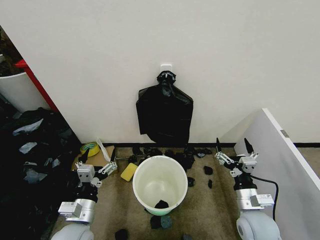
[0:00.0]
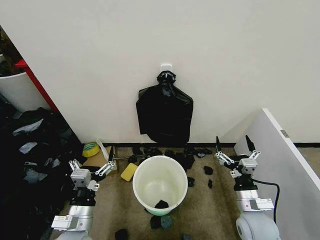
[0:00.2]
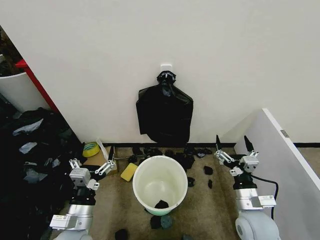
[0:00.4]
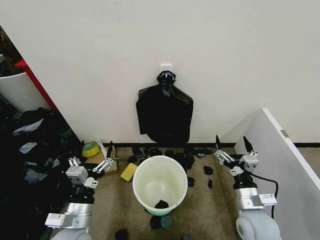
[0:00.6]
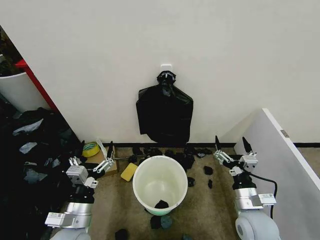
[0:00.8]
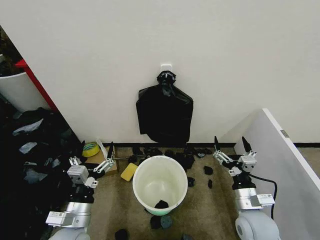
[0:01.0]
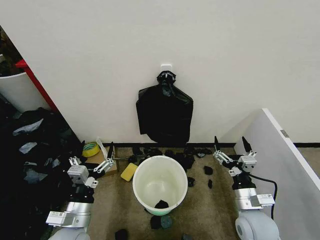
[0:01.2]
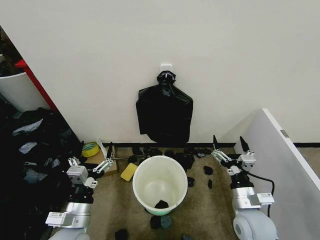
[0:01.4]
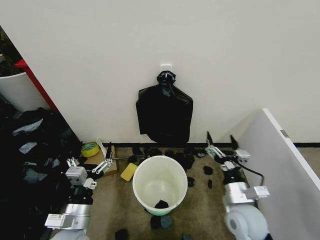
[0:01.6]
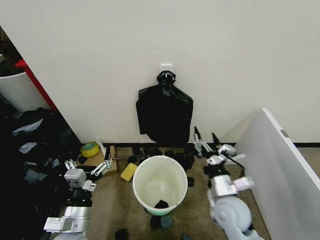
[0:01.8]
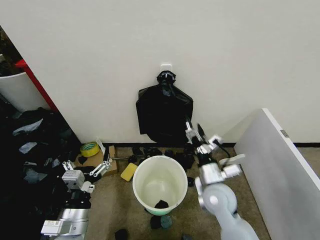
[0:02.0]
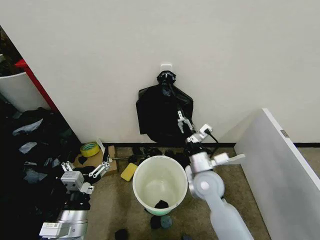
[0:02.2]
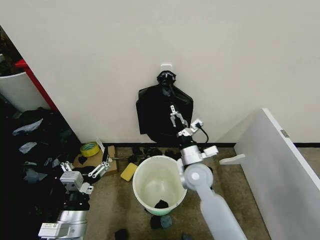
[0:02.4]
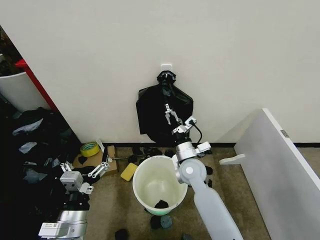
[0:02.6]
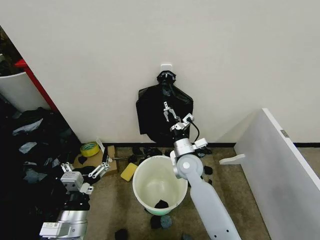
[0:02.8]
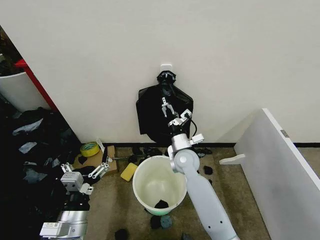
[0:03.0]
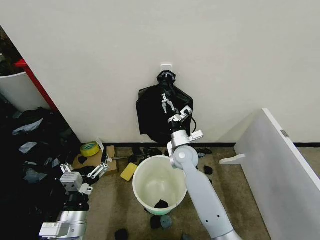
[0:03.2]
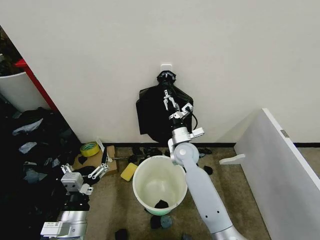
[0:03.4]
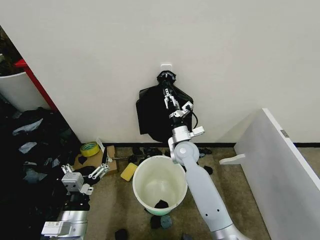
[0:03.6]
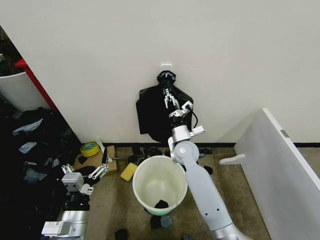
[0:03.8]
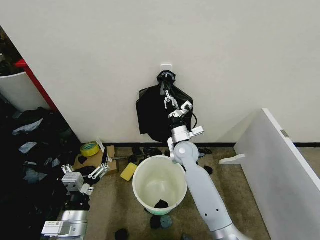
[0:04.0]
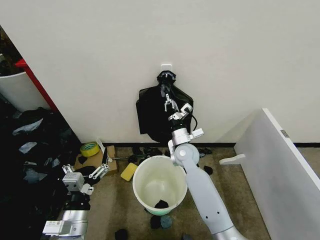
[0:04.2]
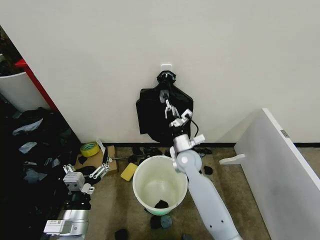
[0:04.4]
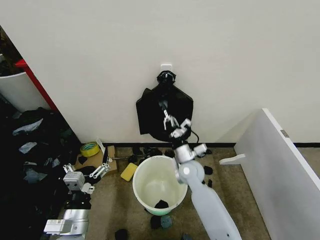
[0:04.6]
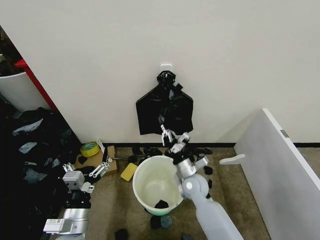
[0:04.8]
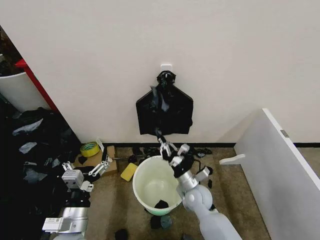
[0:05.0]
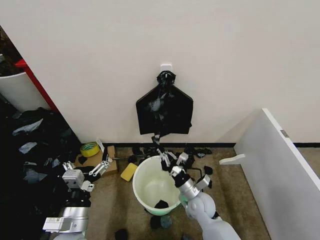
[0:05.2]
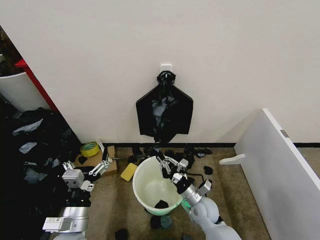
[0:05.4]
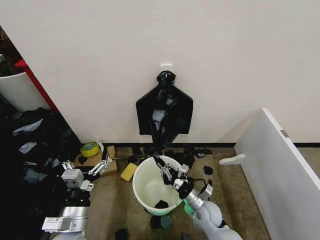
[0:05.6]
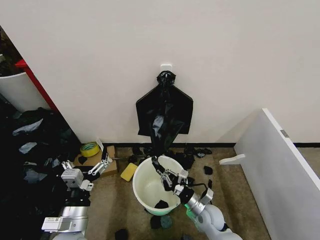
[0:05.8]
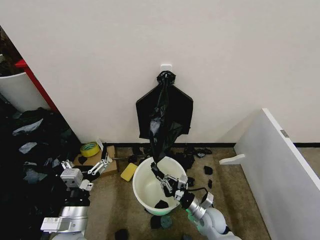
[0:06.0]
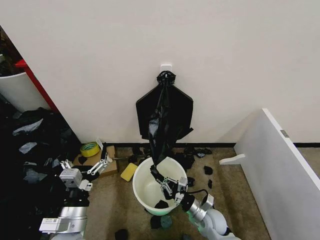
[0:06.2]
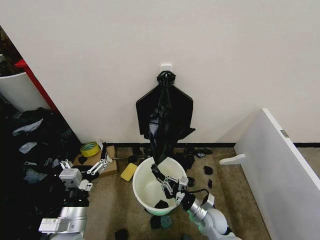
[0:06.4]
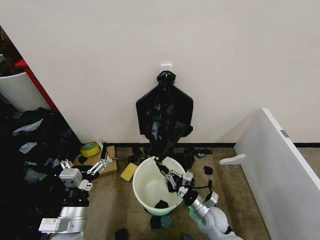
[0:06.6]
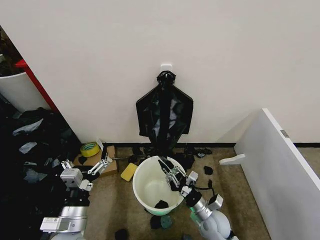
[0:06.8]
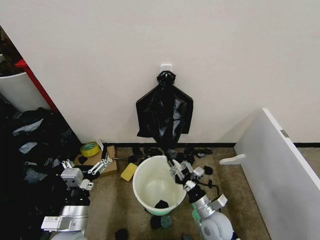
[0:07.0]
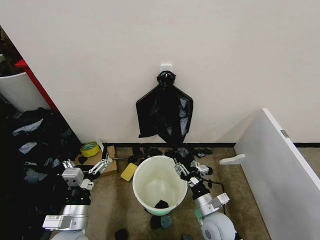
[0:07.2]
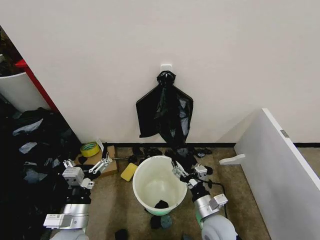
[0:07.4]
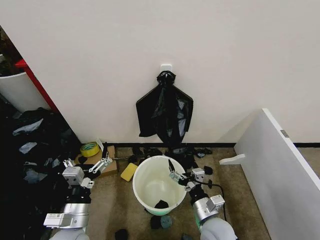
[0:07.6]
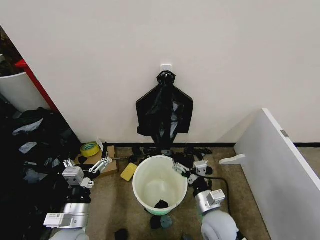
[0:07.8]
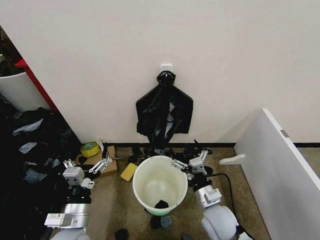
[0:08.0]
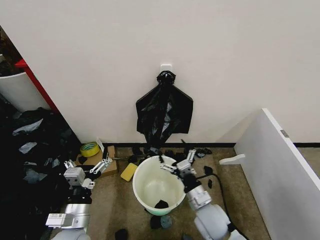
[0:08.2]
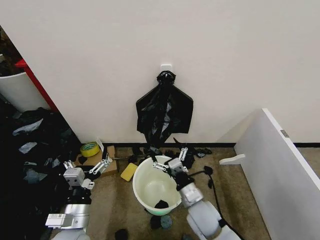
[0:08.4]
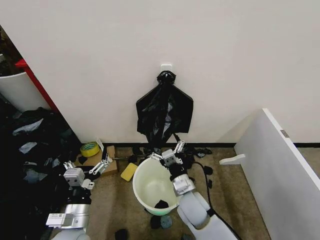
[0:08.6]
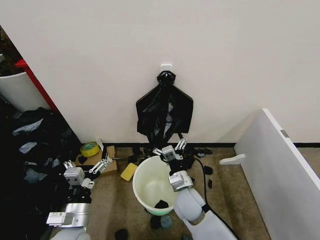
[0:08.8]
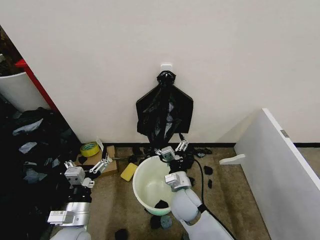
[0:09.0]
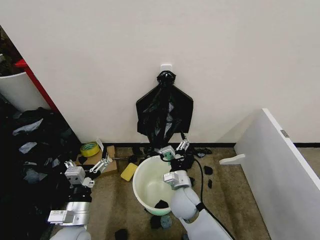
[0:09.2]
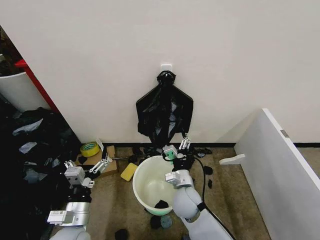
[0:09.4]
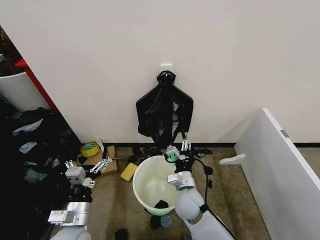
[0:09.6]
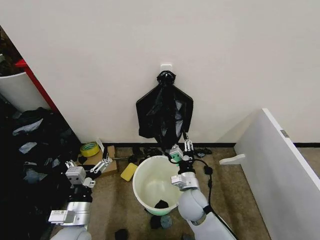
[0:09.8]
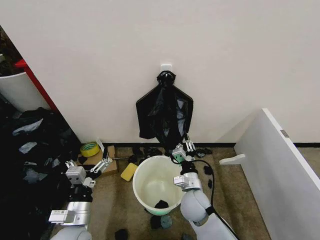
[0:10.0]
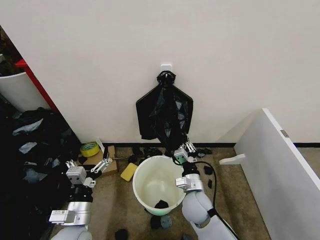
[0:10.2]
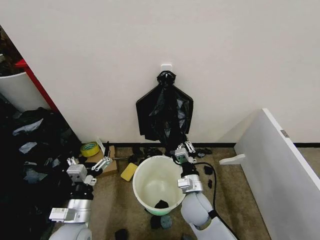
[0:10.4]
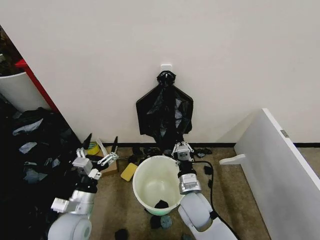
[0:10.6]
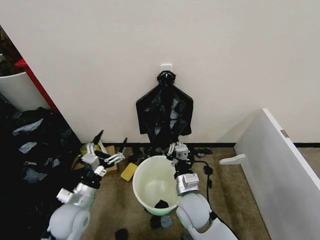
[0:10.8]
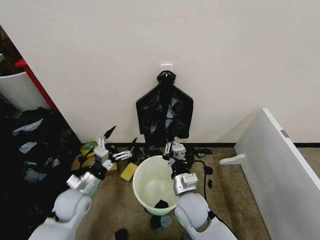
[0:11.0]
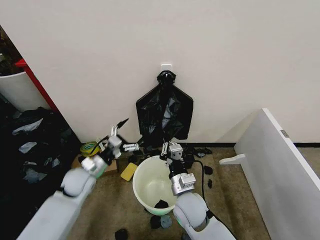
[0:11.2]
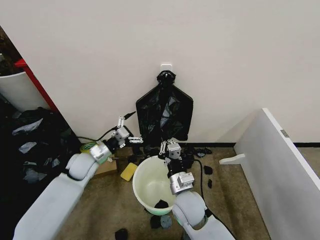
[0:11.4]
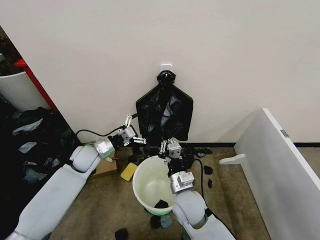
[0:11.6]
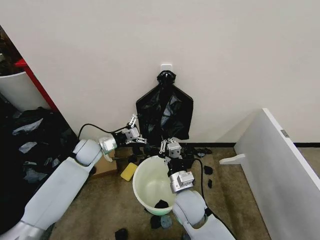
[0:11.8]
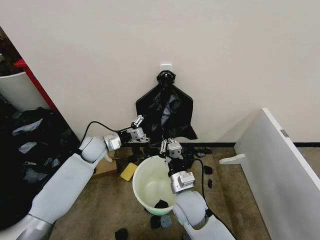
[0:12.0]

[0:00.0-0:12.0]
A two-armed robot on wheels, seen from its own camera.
Task of the whole recording: Place the garbage bag over the trash bin.
0:01.6 to 0:03.0: The right gripper travels forward and to the left by some 25 cm.
0:03.0 to 0:04.4: The right gripper closes up.
0:04.4 to 0:06.0: The right gripper travels backward, downward and to the right by roughly 25 cm.
0:06.0 to 0:07.6: The right gripper heads upward and backward, covering roughly 10 cm, and opens.
0:07.6 to 0:09.0: The right gripper moves forward and to the left, approximately 10 cm.
0:09.0 to 0:10.4: The right gripper closes.
0:10.4 to 0:12.0: The left gripper goes about 30 cm forward. Meanwhile the right gripper moves some 5 cm.

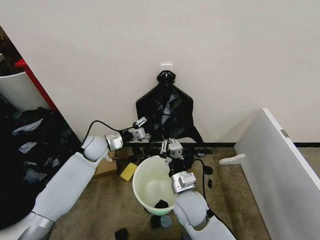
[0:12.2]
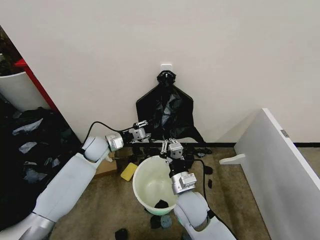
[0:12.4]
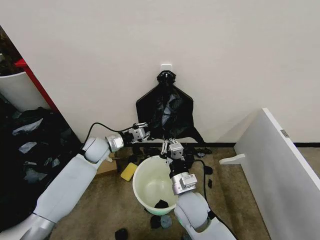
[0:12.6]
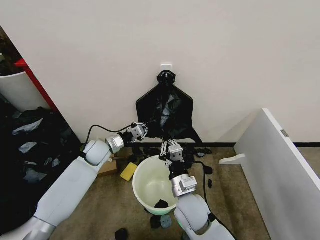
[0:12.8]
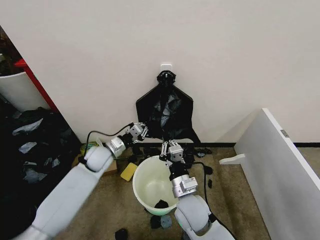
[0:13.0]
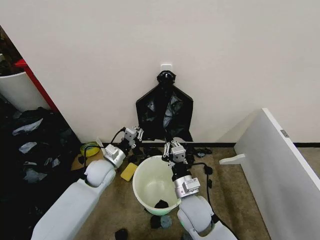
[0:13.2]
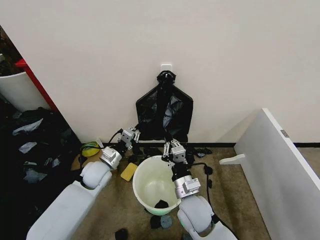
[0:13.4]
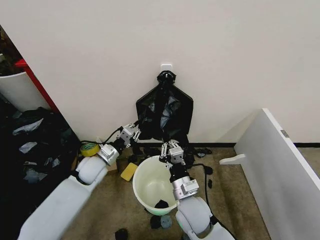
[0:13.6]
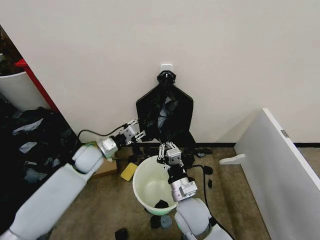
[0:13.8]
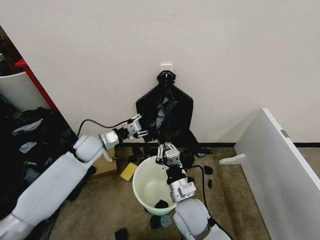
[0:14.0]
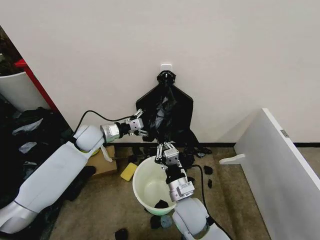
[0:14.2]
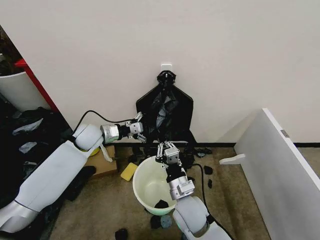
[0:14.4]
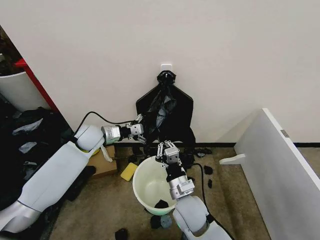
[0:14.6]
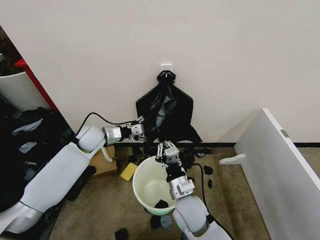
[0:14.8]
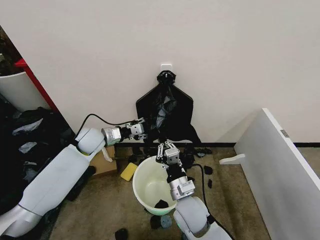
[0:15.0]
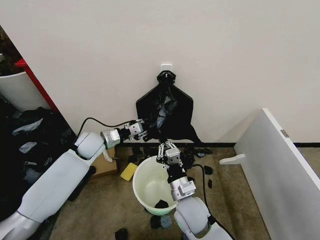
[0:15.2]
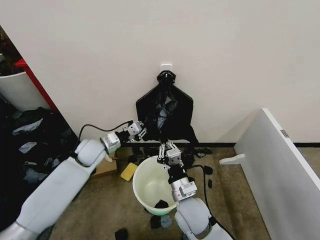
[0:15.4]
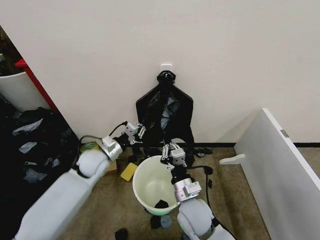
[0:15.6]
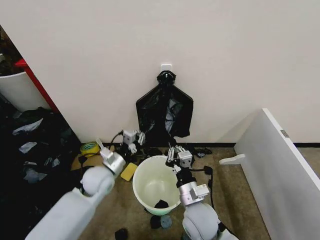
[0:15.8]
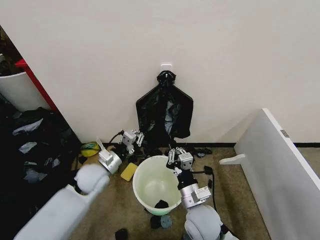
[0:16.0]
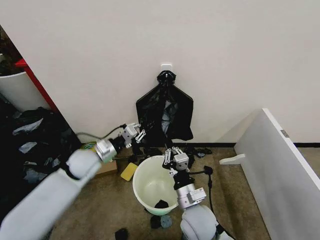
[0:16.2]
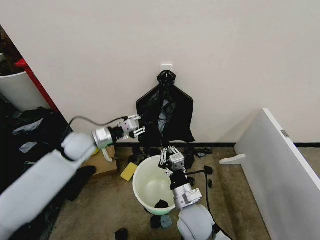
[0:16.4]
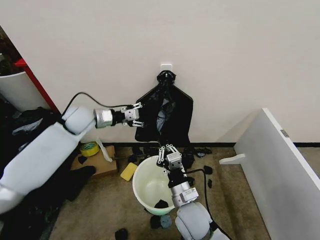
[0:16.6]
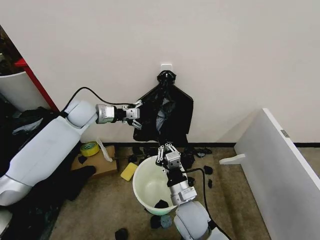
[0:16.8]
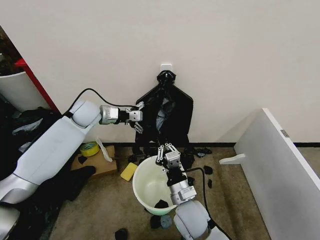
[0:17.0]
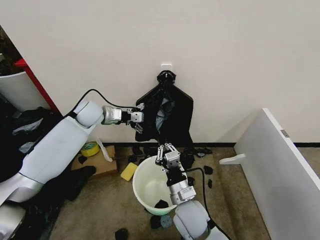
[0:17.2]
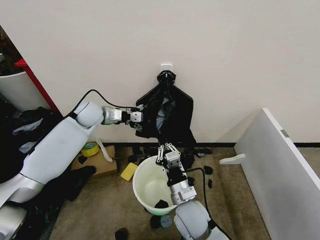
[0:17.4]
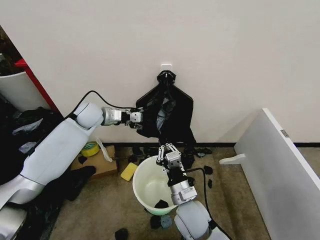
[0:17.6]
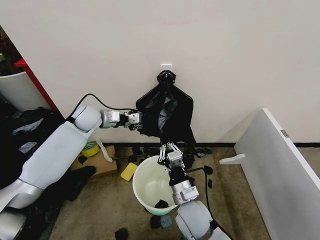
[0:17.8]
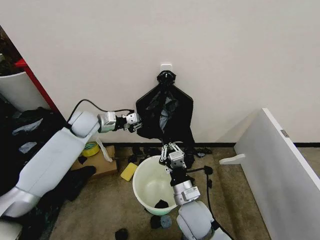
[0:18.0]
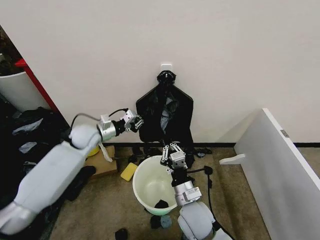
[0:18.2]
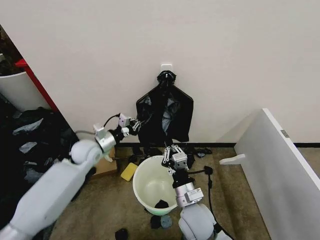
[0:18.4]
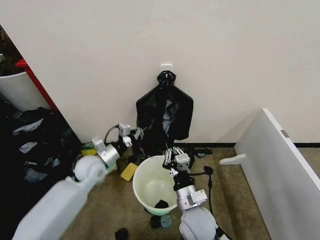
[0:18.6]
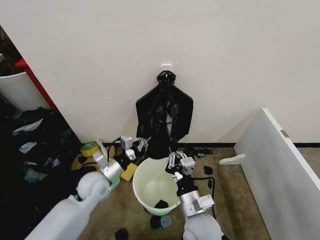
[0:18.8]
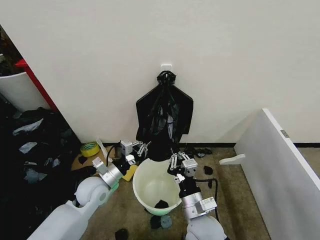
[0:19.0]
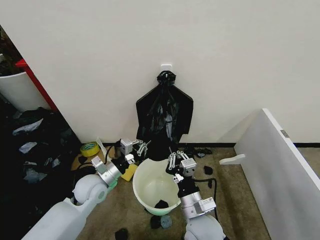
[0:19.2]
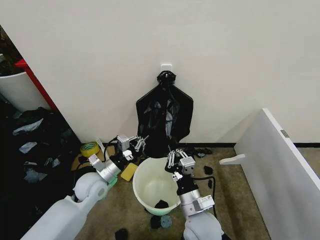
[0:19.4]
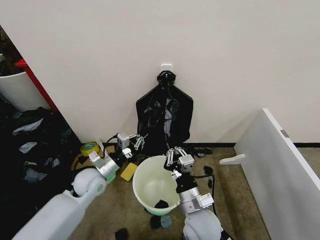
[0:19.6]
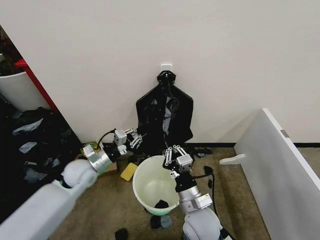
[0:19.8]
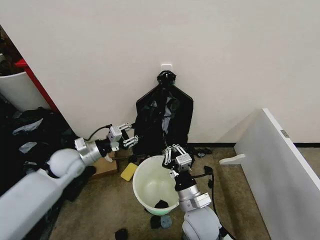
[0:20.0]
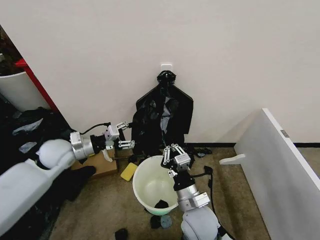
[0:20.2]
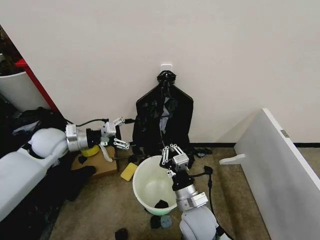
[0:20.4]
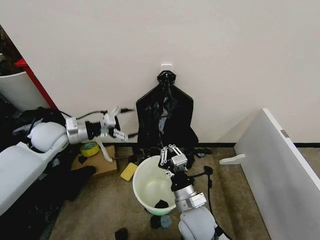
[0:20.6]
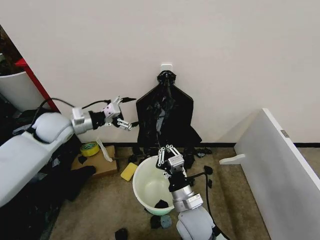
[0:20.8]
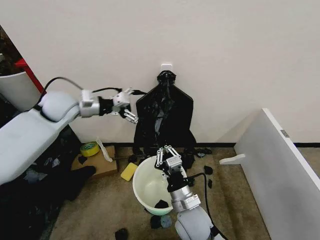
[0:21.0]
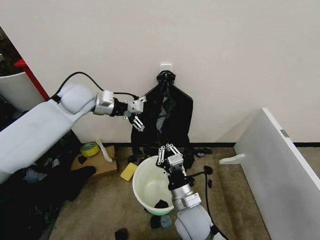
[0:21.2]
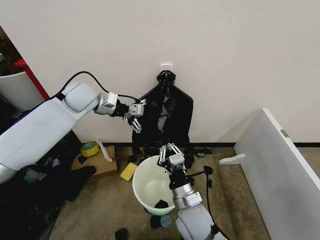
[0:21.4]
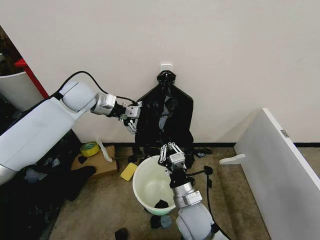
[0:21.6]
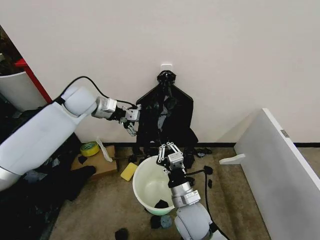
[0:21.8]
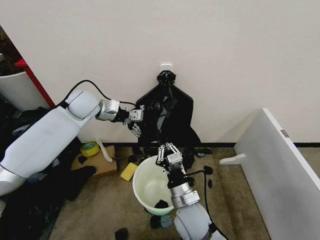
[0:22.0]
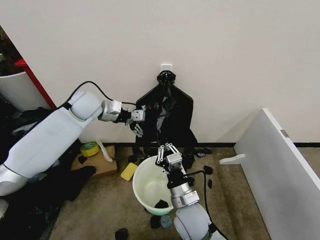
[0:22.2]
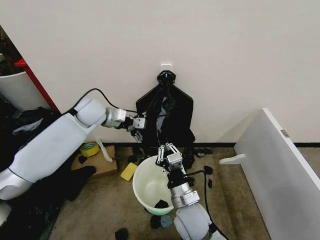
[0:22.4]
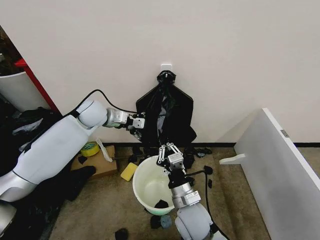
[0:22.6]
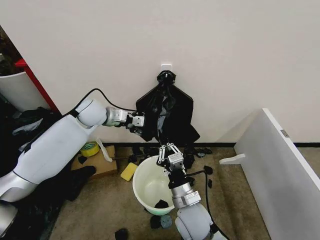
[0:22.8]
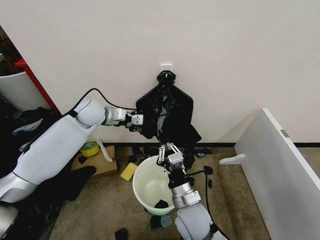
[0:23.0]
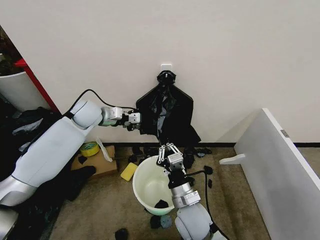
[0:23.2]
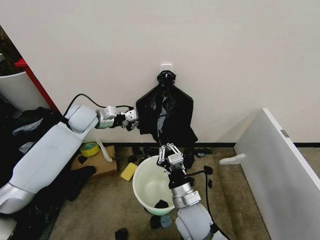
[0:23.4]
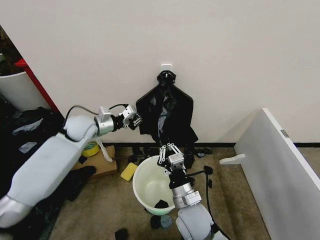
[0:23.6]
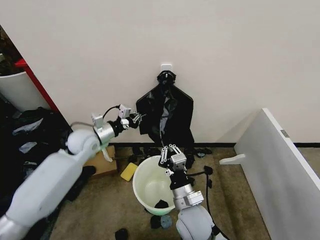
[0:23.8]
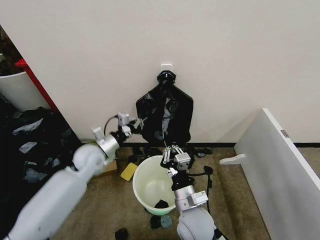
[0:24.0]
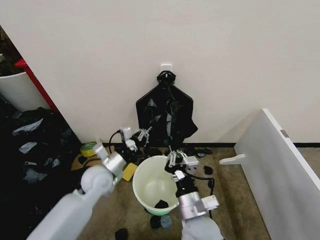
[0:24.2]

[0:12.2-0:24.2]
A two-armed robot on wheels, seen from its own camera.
Task of the whole recording: Place the garbage bag over the trash bin.
0:12.2 to 0:13.8: The left gripper moves backward, some 5 cm, and closes and opens again.
0:13.8 to 0:15.2: The left gripper opens, then closes once more.
0:15.2 to 0:16.6: The left gripper moves upward, roughly 10 cm, and travels backward and back again, roughly 10 cm each way.
0:16.6 to 0:18.2: The left gripper moves downward, some 5 cm, and closes its fingers.
0:18.2 to 0:19.8: The left gripper heads backward, covering about 10 cm.
0:19.8 to 0:21.2: The left gripper moves upward and forward, about 25 cm, and opens its fingers.
0:21.2 to 0:22.6: The left gripper travels downward by approximately 5 cm.
0:22.6 to 0:24.2: The left gripper moves backward and downward, approximately 20 cm, and closes up.
